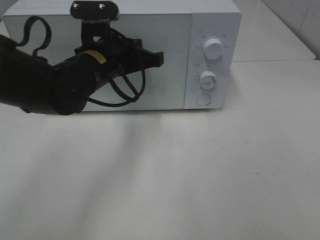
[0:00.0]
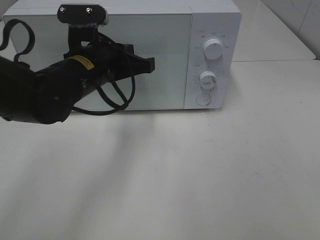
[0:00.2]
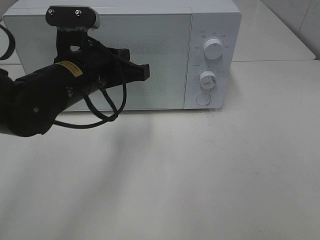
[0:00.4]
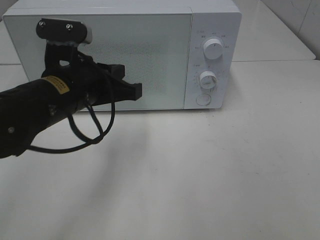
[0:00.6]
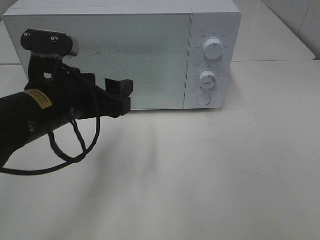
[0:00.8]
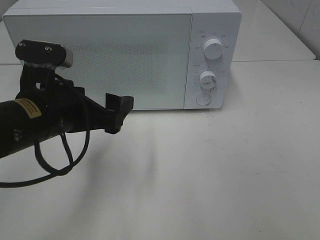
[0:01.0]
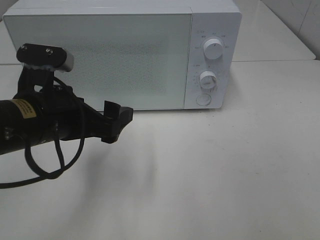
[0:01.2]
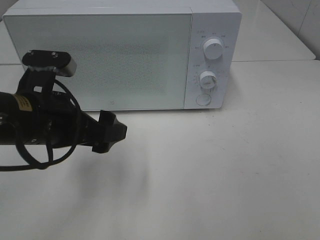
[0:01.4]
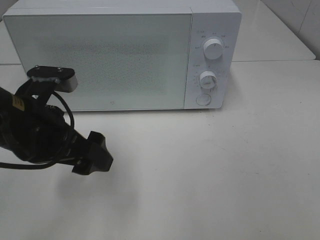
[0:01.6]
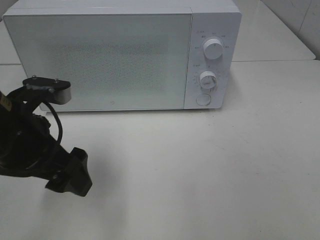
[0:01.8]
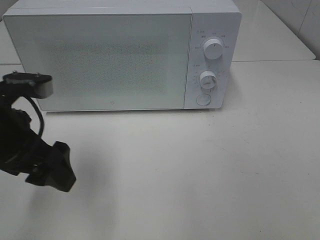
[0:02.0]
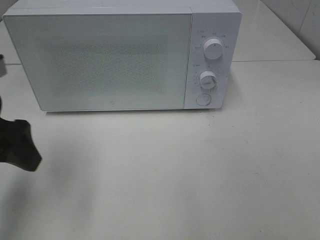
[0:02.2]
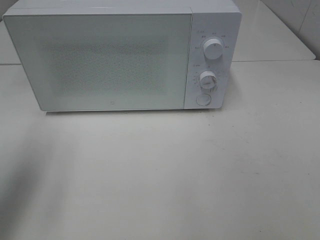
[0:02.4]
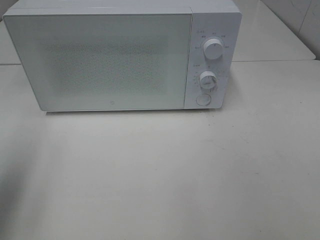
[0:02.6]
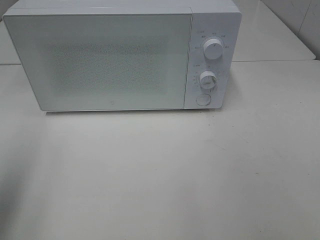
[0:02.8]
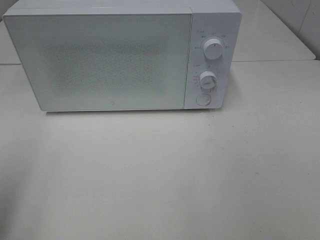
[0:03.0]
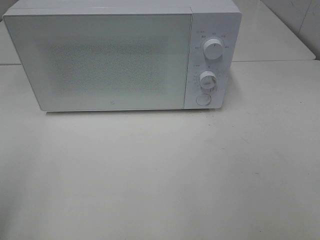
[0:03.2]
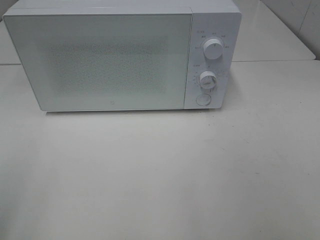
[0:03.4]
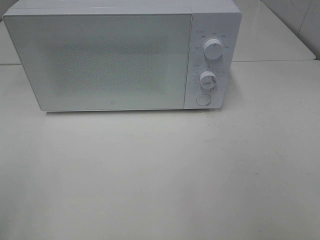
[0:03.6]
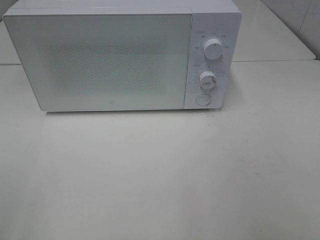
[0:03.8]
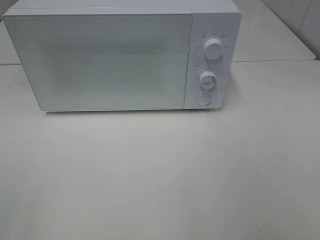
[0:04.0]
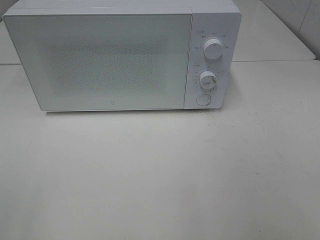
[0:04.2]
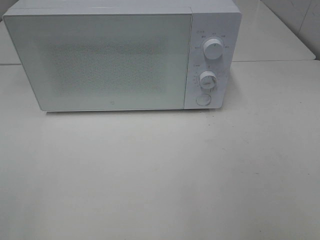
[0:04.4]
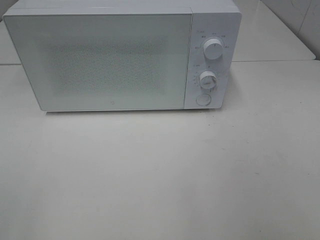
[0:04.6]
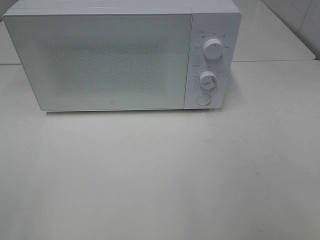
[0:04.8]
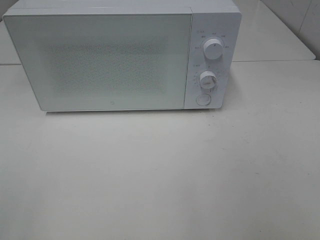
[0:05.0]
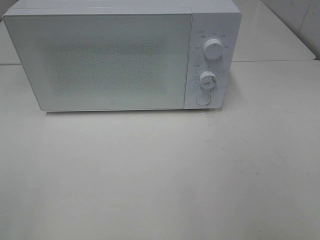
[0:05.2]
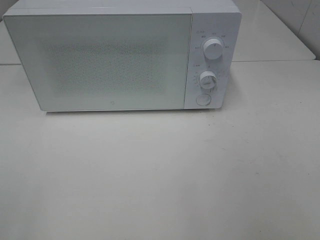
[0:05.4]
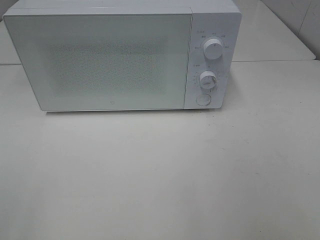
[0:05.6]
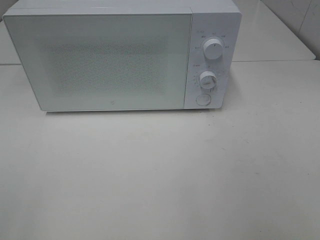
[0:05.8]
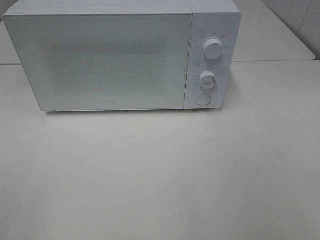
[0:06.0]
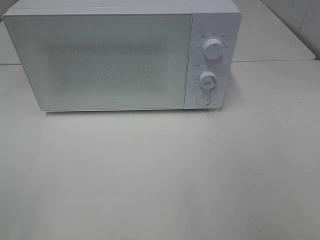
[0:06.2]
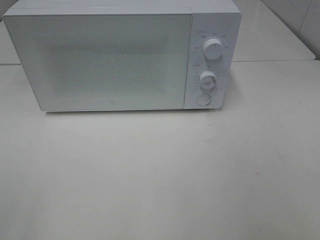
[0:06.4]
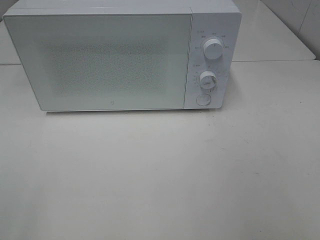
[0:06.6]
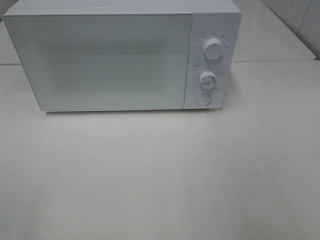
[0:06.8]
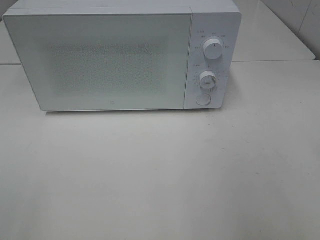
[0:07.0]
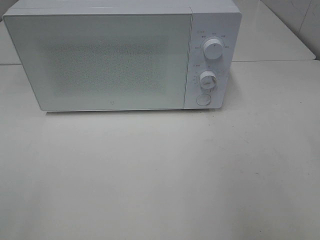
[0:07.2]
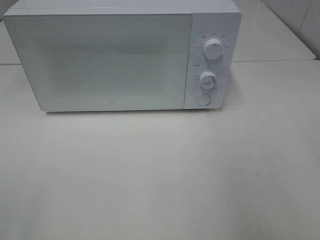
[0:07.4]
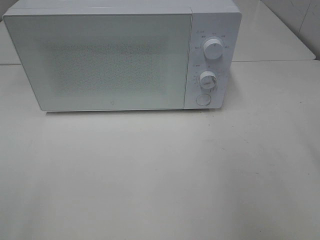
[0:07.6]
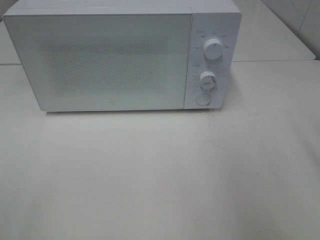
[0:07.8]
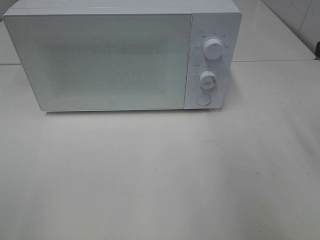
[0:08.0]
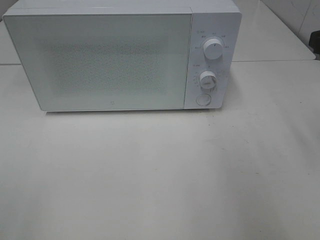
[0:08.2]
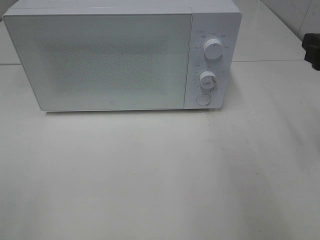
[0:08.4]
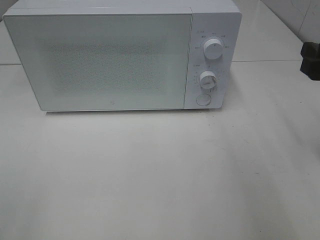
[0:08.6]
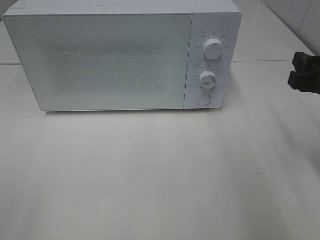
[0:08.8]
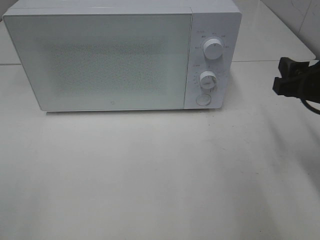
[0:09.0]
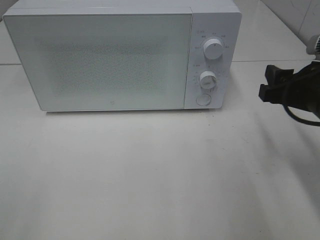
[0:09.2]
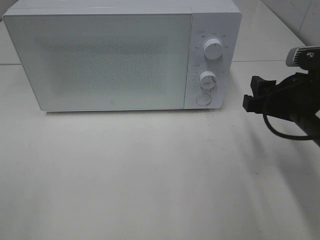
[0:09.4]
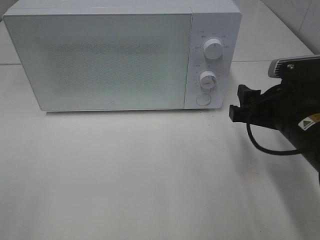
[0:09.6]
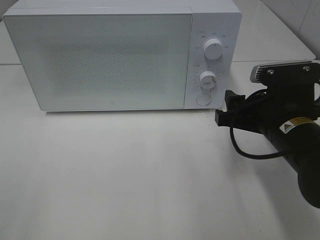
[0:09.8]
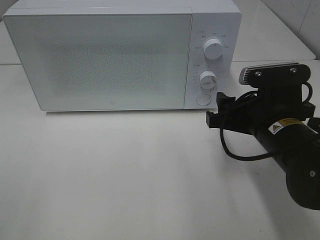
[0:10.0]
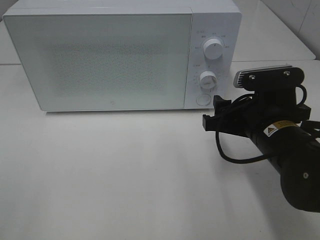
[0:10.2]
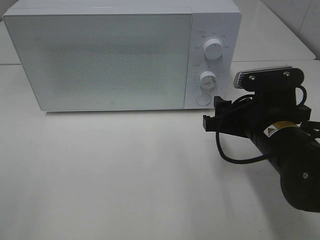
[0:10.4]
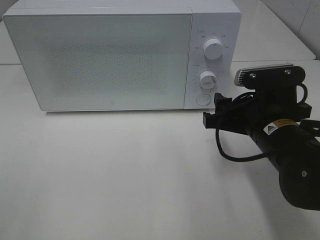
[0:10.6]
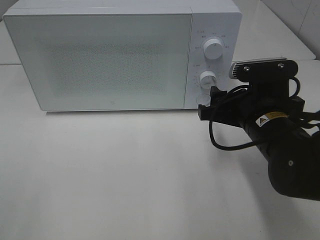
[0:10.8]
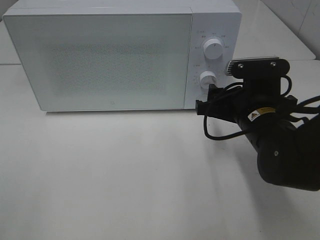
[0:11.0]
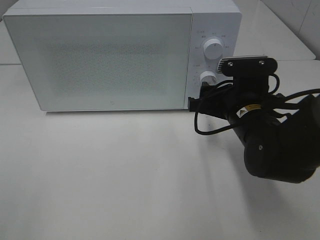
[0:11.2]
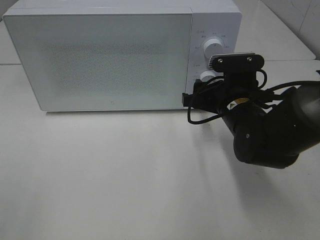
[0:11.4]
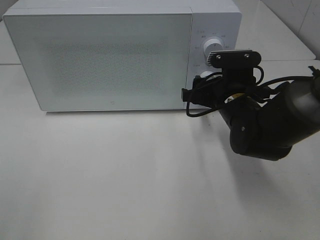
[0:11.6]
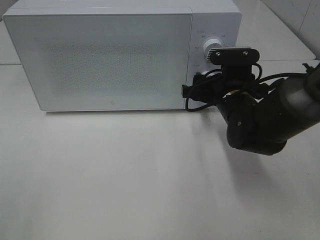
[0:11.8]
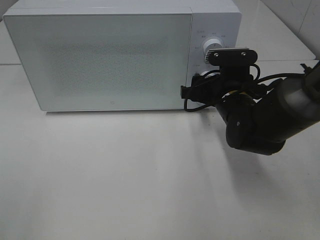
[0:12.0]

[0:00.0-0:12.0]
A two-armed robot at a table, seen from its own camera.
Task of the whole recording: Heat Sandwich.
0:00.0 to 0:01.6: The left gripper moves backward and to the left, about 15 cm, and opens up.
0:01.6 to 0:03.0: The left gripper travels to the left, backward and upward by approximately 20 cm.
0:03.0 to 0:04.4: The left gripper goes some 10 cm backward.
0:04.4 to 0:06.0: The two grippers keep their place.
0:07.6 to 0:09.0: The right gripper shifts roughly 10 cm downward and forward.
0:09.0 to 0:10.4: The right gripper moves to the left and downward, roughly 10 cm.
0:10.4 to 0:12.0: The right gripper goes some 10 cm forward.

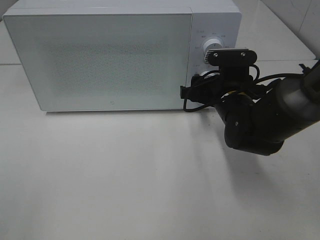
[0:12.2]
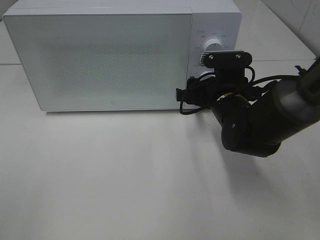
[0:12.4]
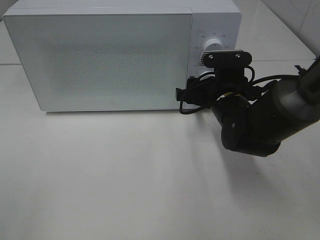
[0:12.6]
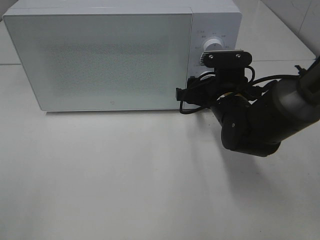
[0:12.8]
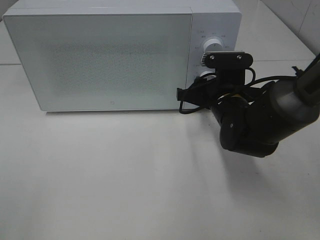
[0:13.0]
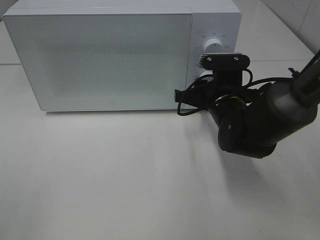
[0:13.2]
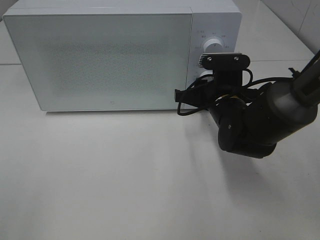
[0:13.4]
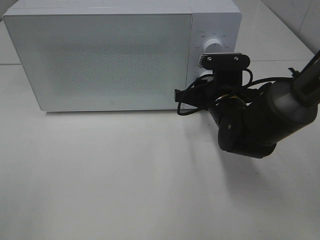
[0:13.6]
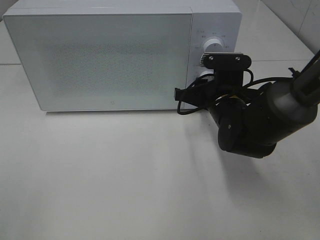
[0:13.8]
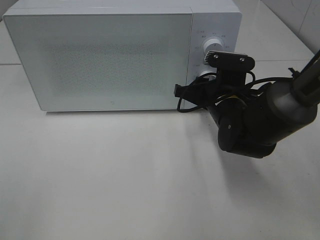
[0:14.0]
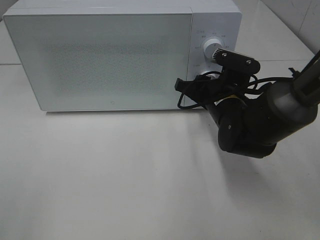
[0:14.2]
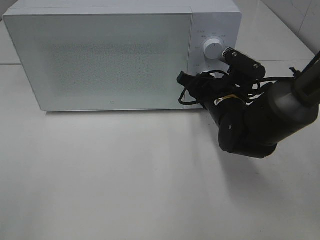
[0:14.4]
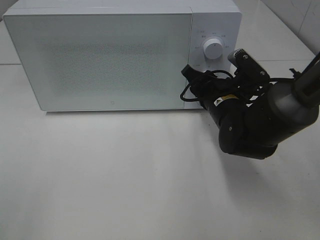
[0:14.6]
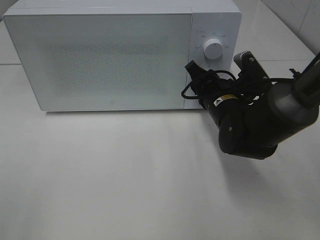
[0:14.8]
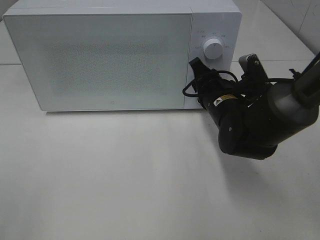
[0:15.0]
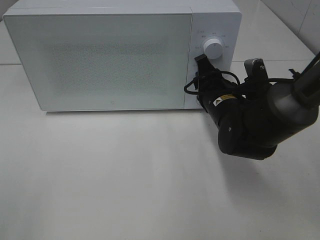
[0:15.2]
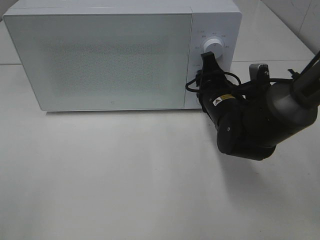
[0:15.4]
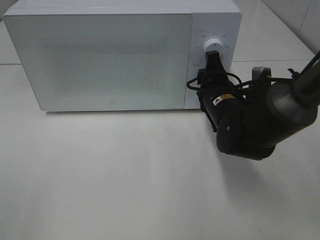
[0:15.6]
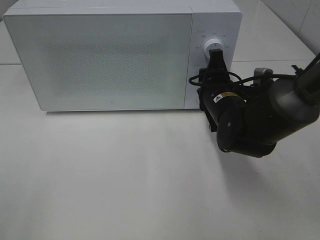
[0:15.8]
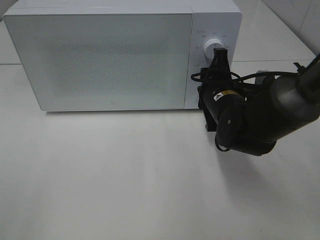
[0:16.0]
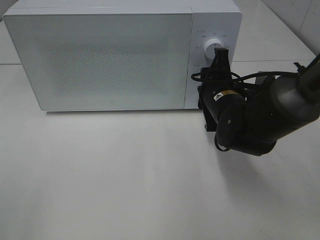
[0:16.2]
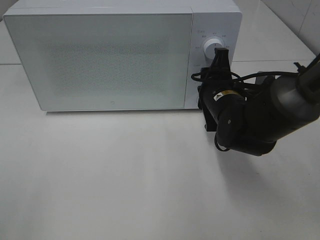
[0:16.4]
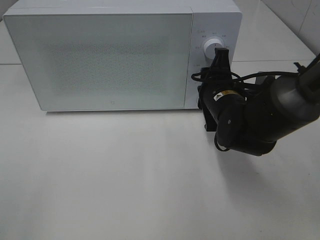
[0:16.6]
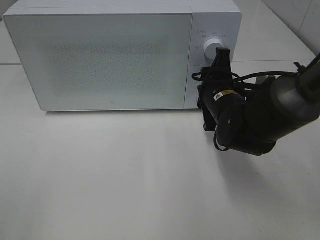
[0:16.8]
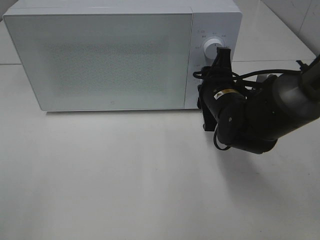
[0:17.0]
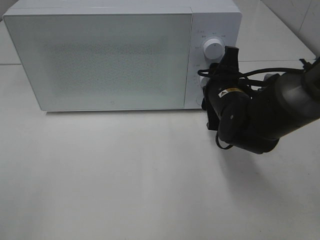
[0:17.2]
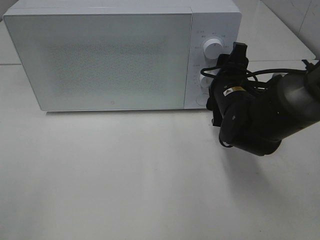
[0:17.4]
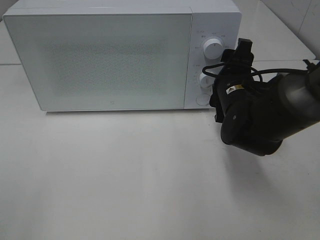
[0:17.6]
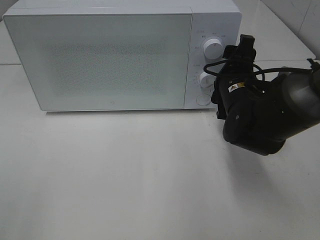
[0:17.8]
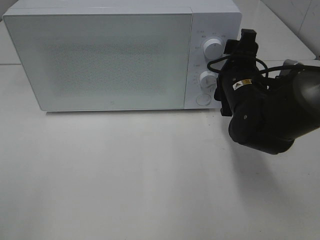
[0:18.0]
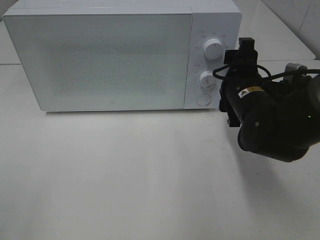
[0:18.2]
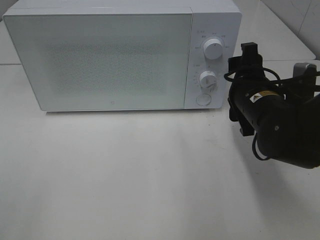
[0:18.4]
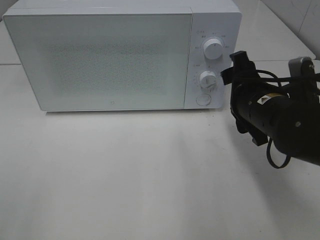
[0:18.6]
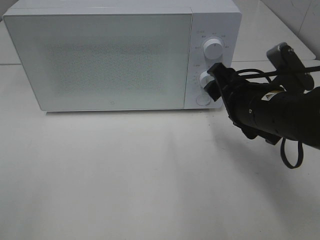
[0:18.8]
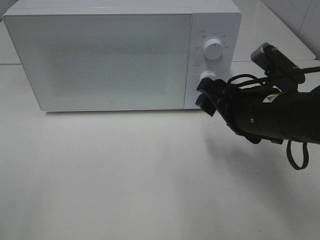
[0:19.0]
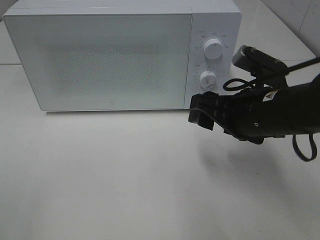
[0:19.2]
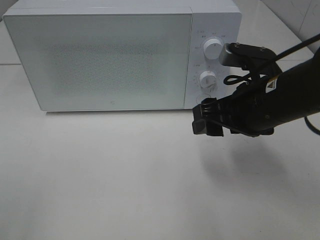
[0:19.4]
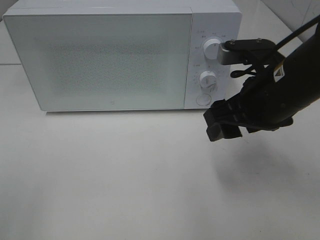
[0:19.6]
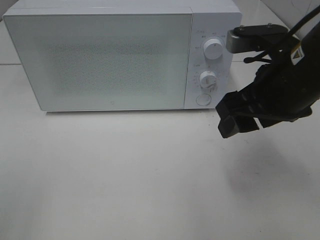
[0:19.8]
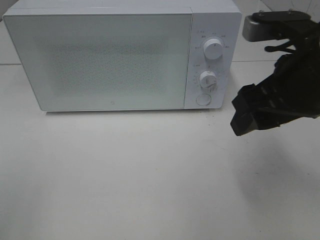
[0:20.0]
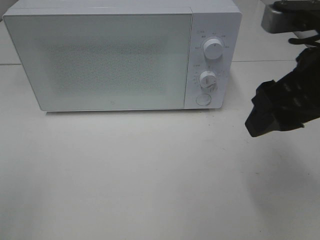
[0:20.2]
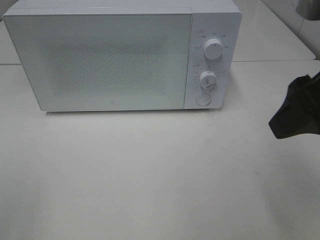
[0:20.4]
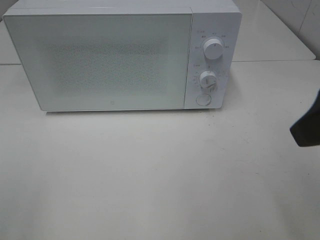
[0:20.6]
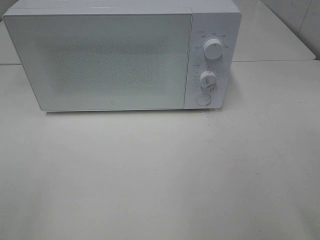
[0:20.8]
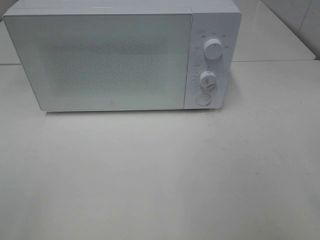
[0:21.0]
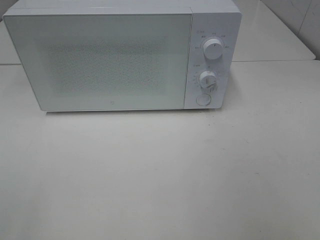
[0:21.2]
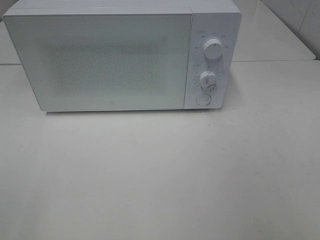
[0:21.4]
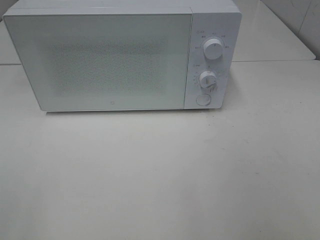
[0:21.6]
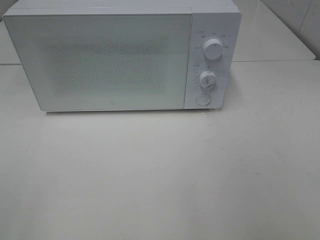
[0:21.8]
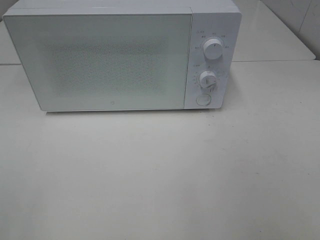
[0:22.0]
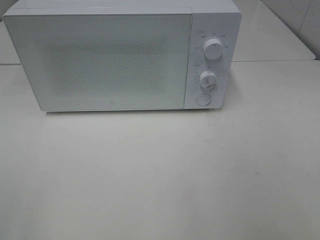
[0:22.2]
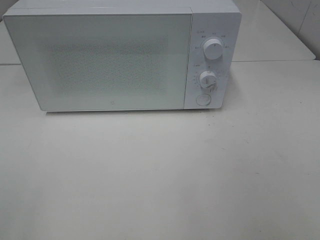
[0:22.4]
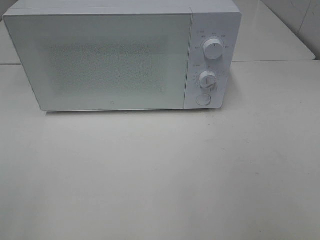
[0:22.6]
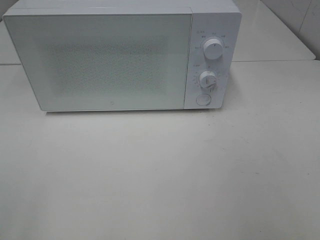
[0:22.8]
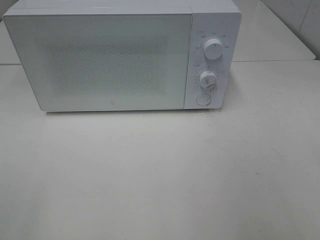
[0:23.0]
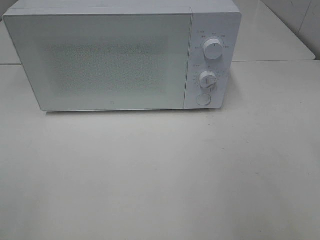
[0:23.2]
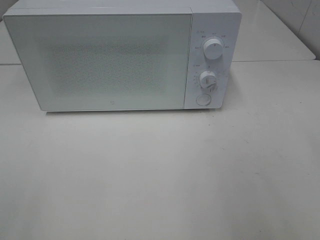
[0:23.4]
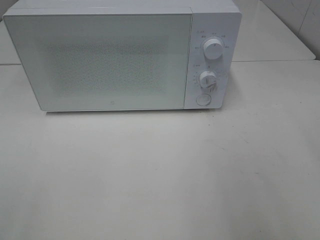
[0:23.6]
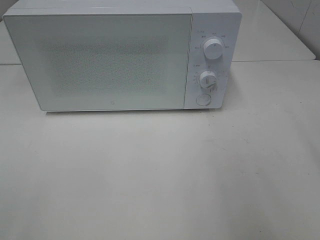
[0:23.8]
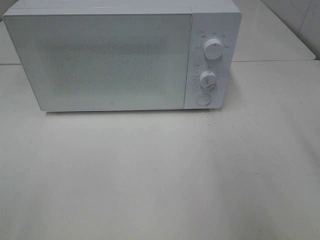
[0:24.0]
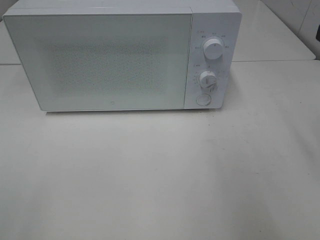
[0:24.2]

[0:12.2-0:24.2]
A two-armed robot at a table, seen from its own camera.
Task of the whole recording: Heat Sandwich.
Step, 0:12.2 to 0:18.2: Right hand: twist timer button.
0:12.2 to 0:13.8: Neither gripper changes place.
0:16.6 to 0:18.2: The right gripper opens.
0:18.2 to 0:19.8: The right gripper travels upward and backward by some 10 cm.
0:19.8 to 0:21.2: The right gripper moves backward and to the right, roughly 20 cm.
